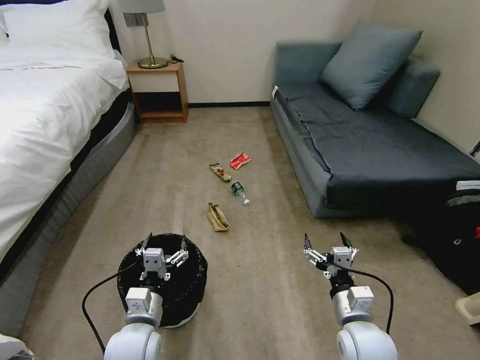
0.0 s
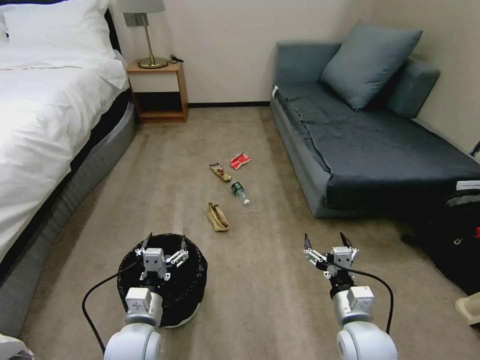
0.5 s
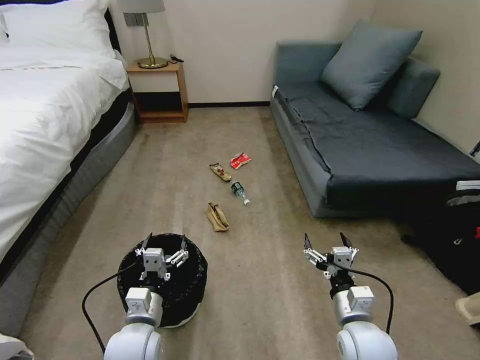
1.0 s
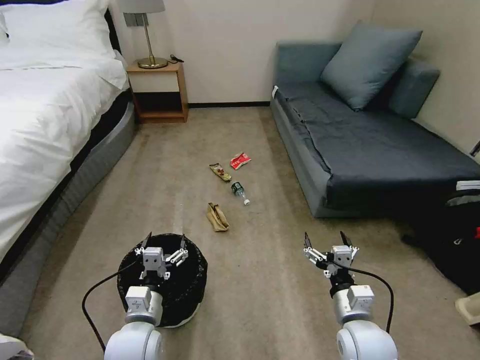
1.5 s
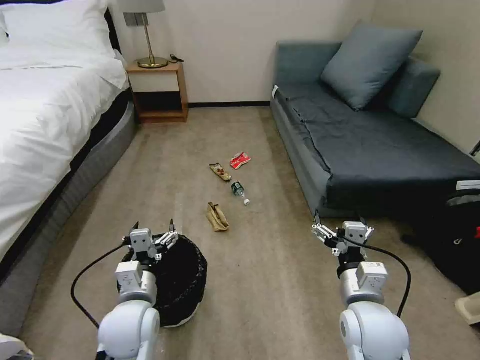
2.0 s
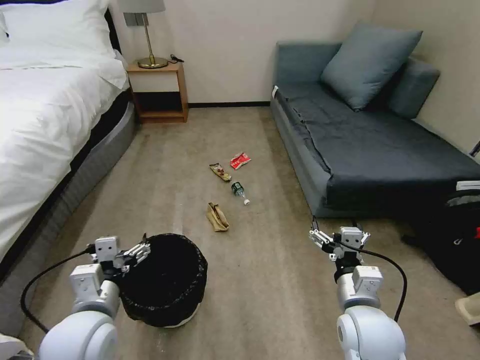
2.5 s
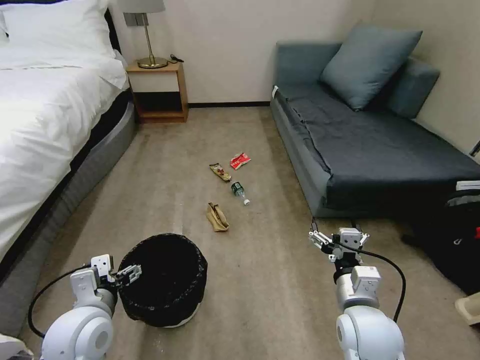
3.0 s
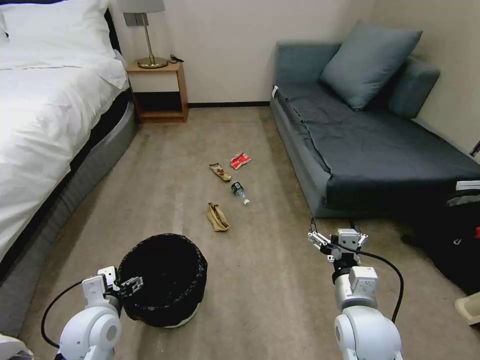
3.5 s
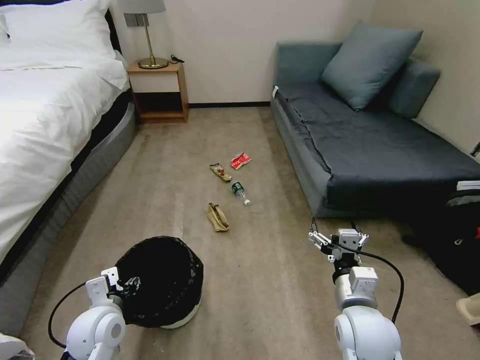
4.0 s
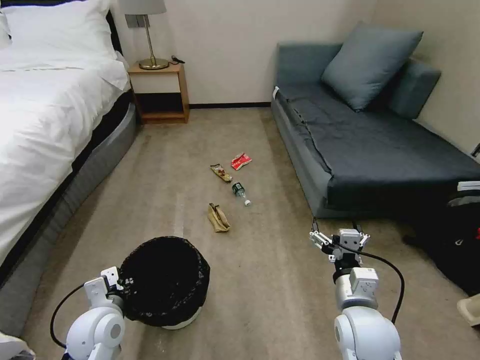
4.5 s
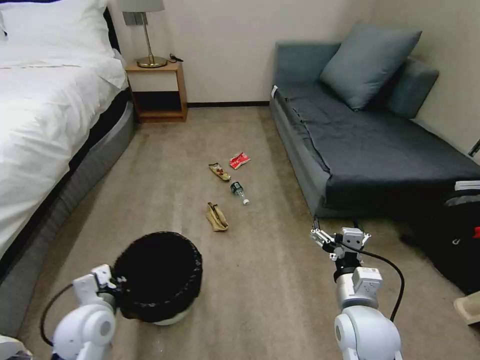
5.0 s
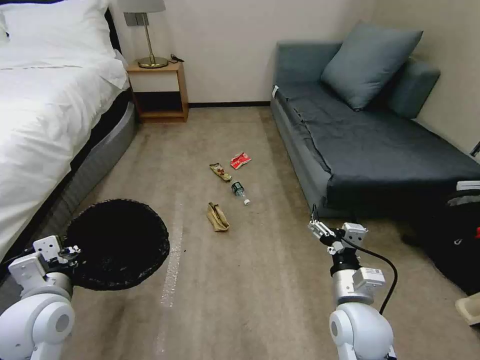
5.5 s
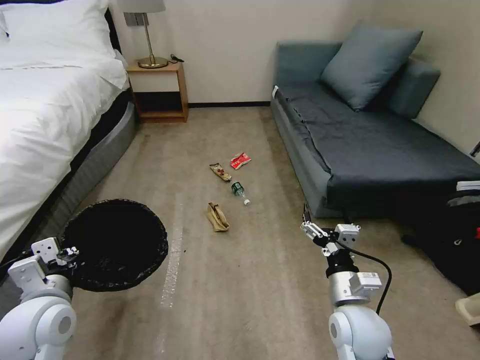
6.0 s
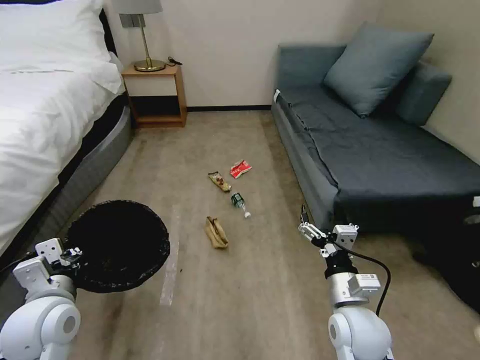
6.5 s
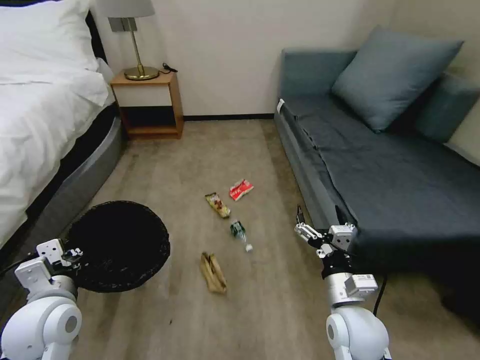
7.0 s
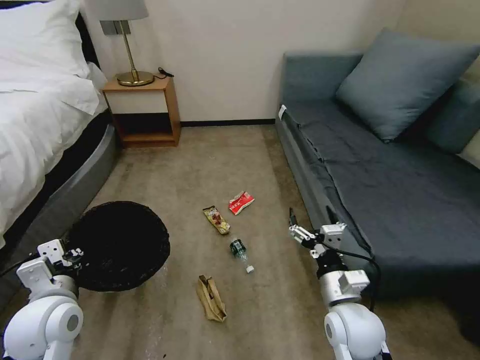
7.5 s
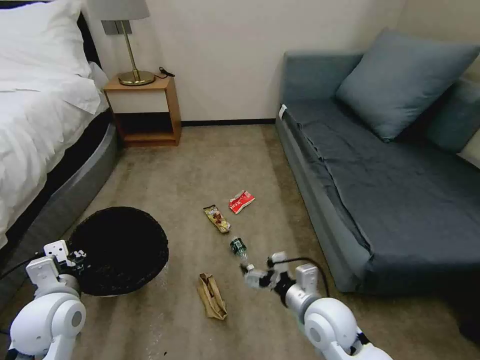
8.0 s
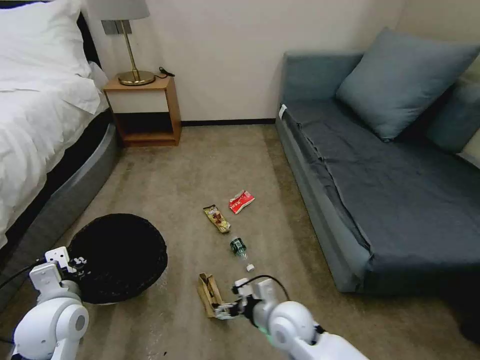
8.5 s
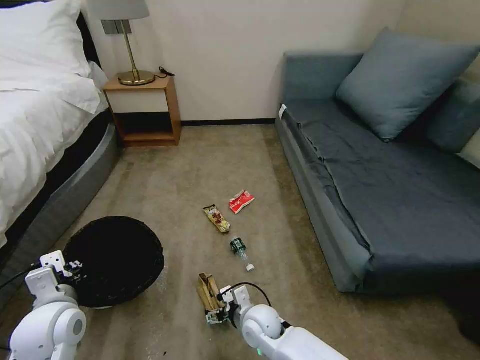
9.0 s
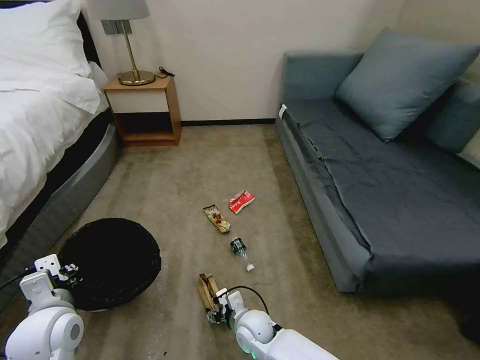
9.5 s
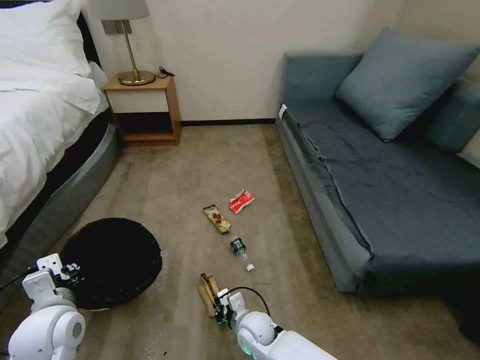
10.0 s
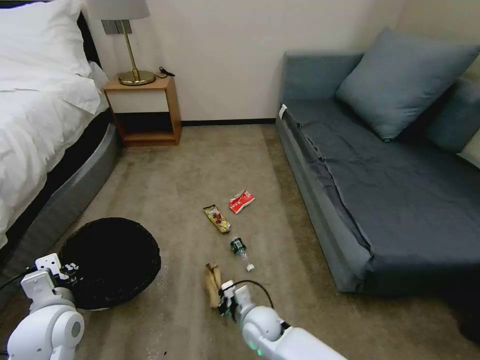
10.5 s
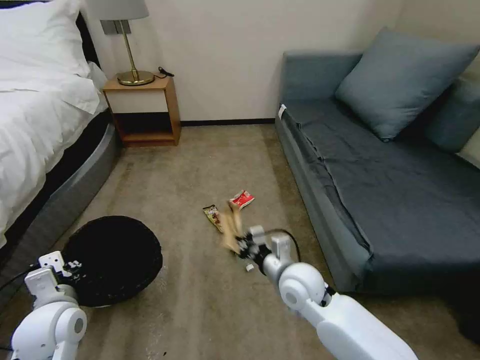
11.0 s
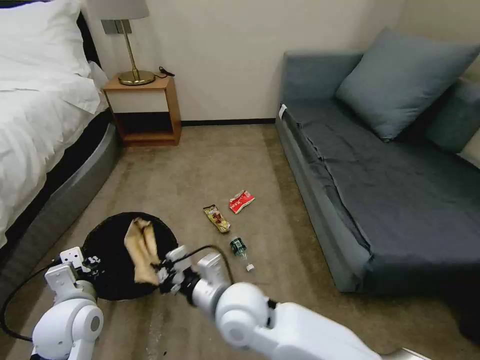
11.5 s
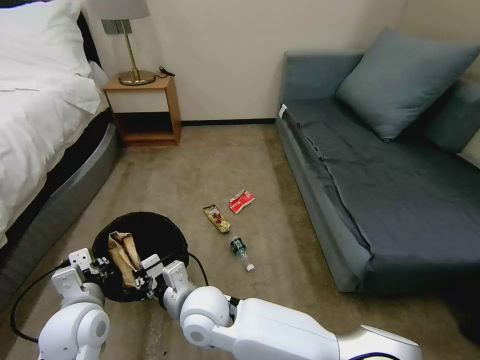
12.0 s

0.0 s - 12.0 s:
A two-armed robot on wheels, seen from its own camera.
Task of the whole recording: Pick up the trash bin, then pick up the garbage on the floor and place it into the trash bin.
2.0 s - 4.0 s: The left gripper travels to the left by roughly 10 cm, and closes.
4.0 s - 6.0 s: The left gripper moves upward, roughly 10 cm, and closes up.
8.0 s - 10.0 s: The right gripper moves downward and to the left, roughly 20 cm, and closes its fingers.
10.0 s - 12.0 s: The right gripper shifts some 25 cm upward and to the left.

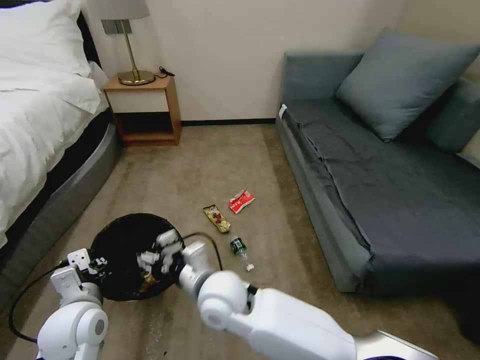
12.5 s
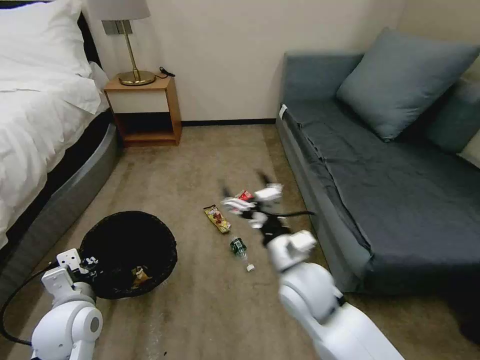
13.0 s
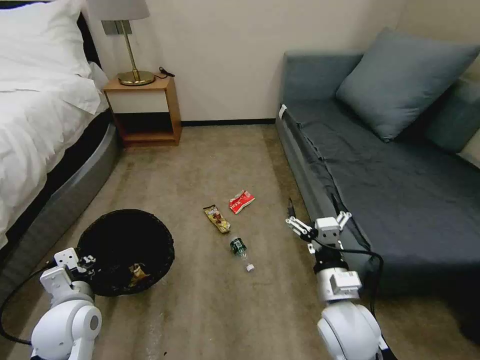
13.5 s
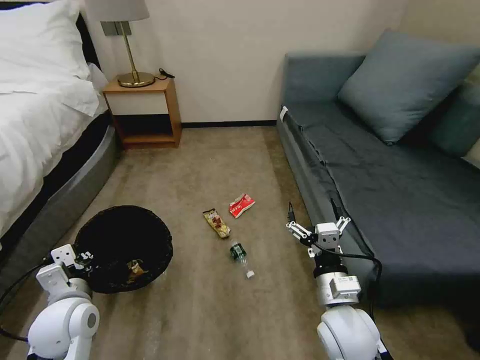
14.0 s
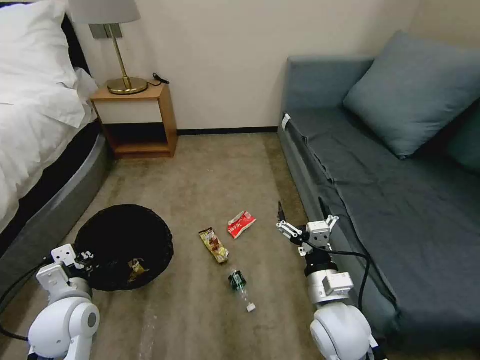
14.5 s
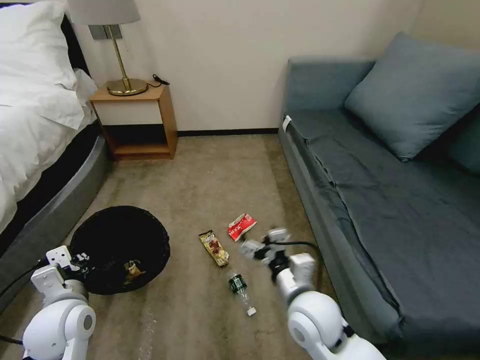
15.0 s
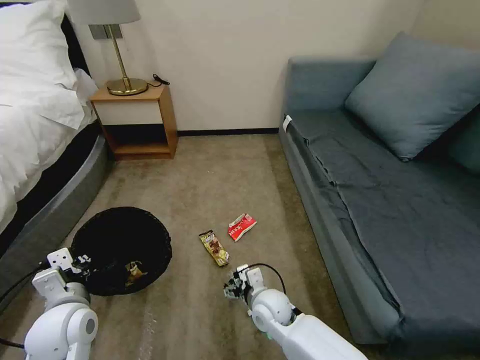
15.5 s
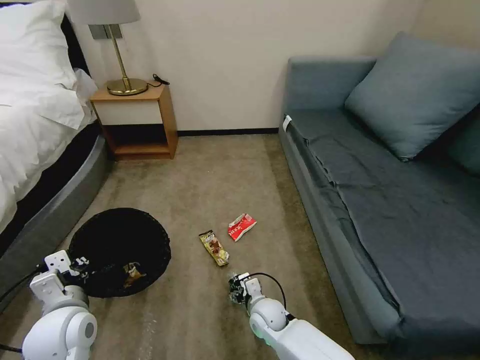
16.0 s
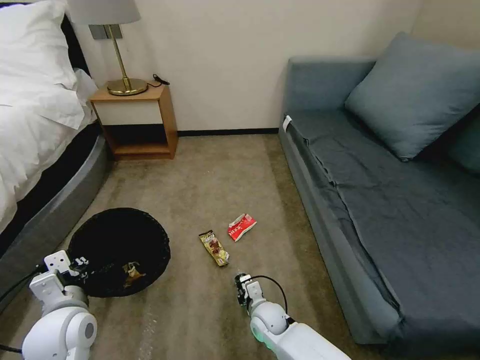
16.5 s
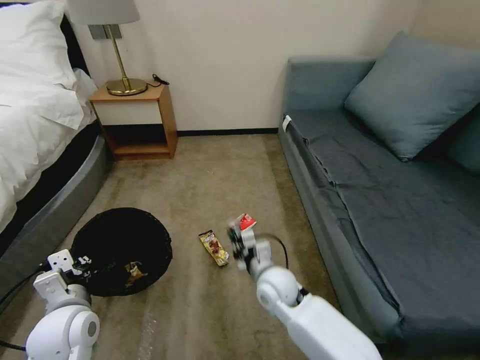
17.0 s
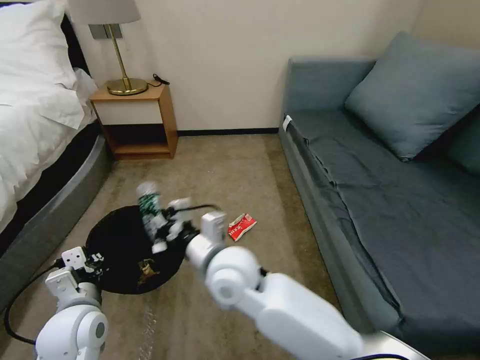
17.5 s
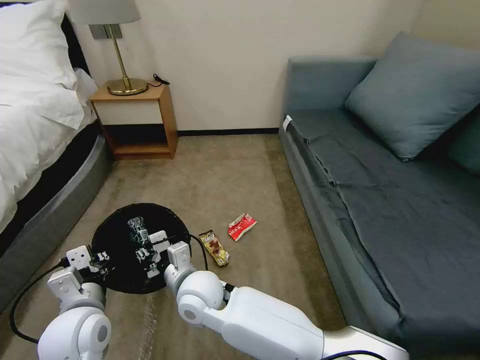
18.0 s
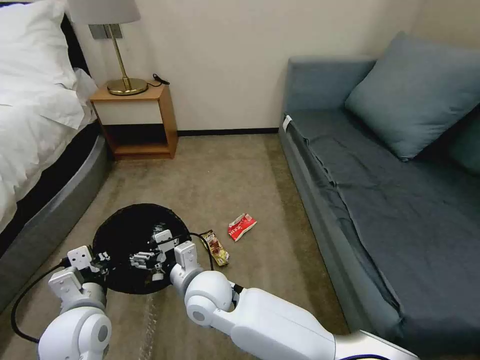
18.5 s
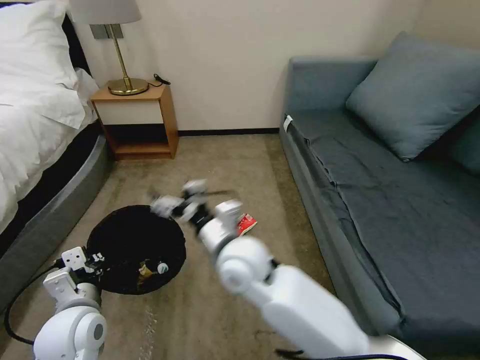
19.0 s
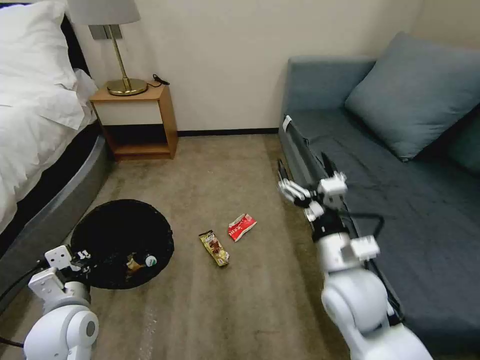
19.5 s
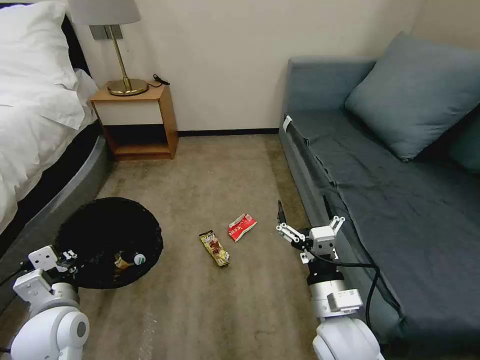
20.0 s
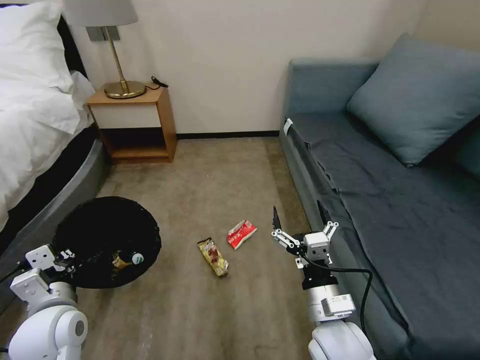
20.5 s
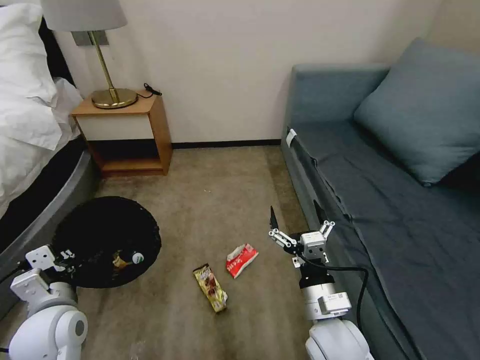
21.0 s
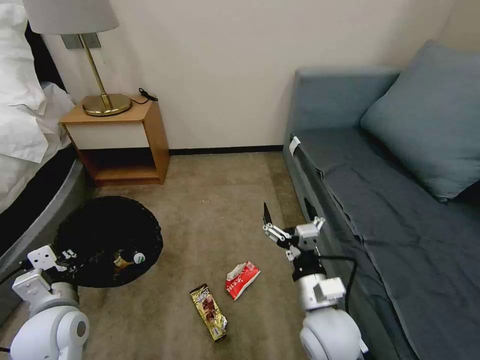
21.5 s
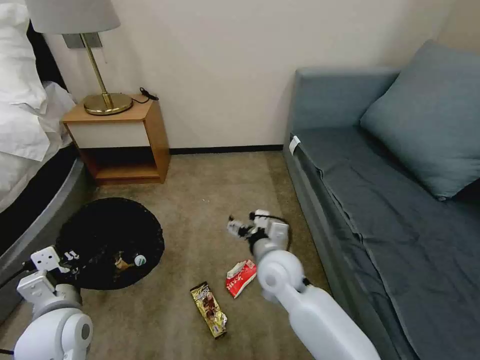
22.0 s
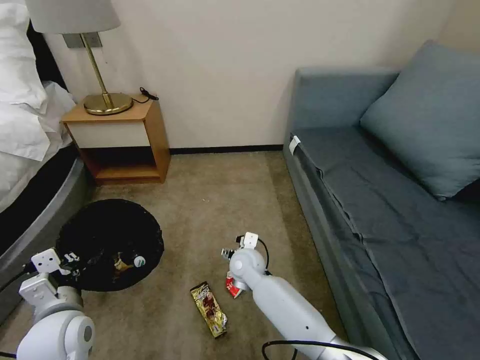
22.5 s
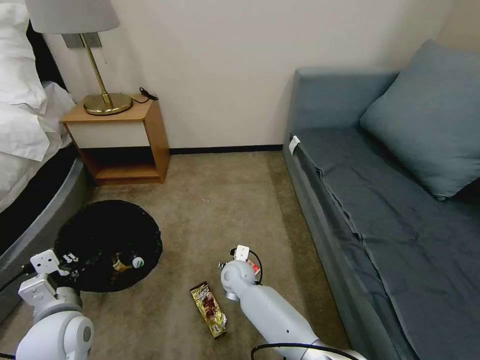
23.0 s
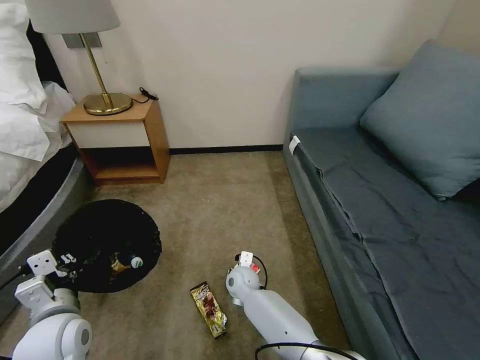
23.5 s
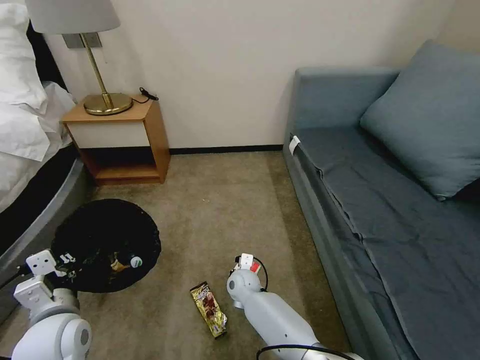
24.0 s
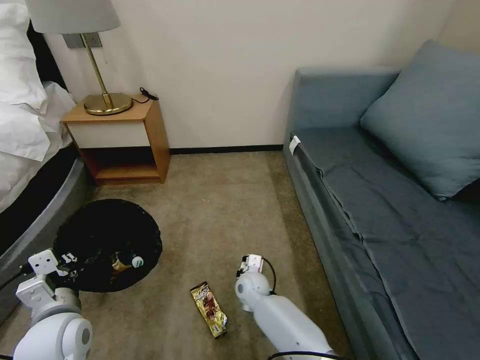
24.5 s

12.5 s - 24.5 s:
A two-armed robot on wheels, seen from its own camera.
Task of the whole recording: Pick up the trash bin, then pick up the garbage on the floor and place it into the trash bin.
12.5 s - 14.5 s: The right gripper is displaced to the right by approximately 20 cm.
14.5 s - 16.5 s: The right gripper heads downward and to the left, covering approximately 25 cm, and closes its fingers.
16.5 s - 18.5 s: The right gripper is displaced upward and to the left by about 25 cm, and opens its fingers.
18.5 s - 20.5 s: The right gripper heads to the right, covering roughly 25 cm.
20.5 s - 22.5 s: The right gripper goes approximately 25 cm forward, to the left and downward.
22.5 s - 24.5 s: The right gripper travels downward by roughly 10 cm, and closes.

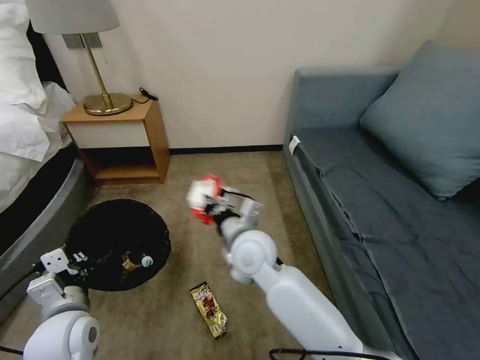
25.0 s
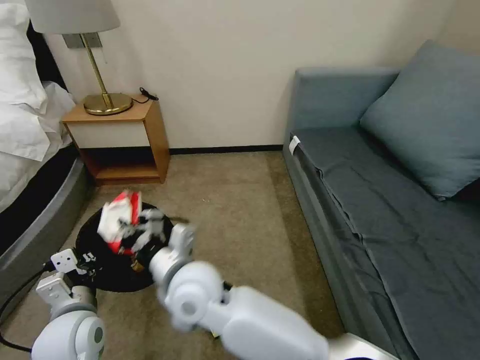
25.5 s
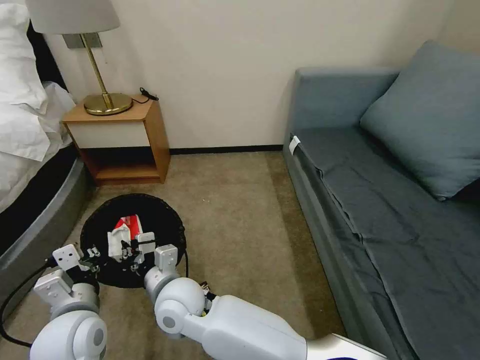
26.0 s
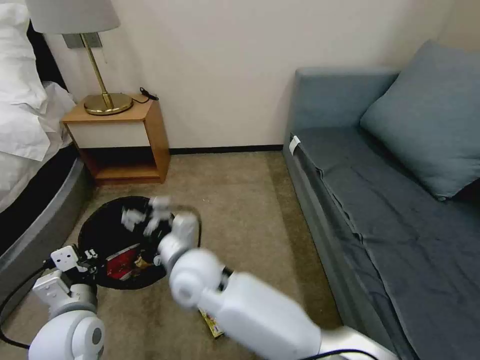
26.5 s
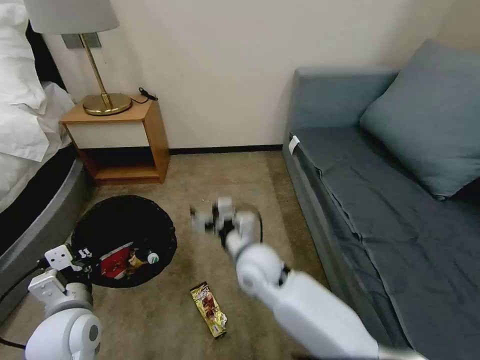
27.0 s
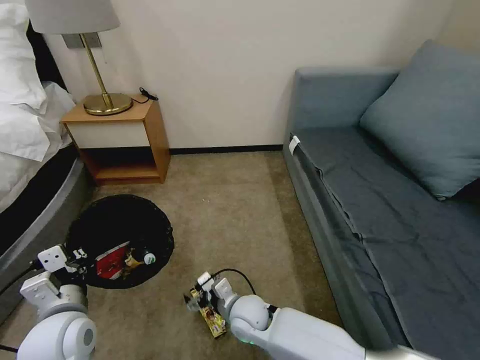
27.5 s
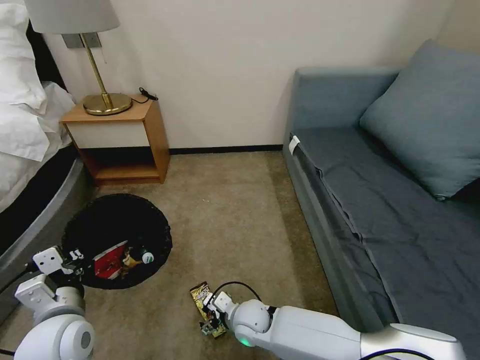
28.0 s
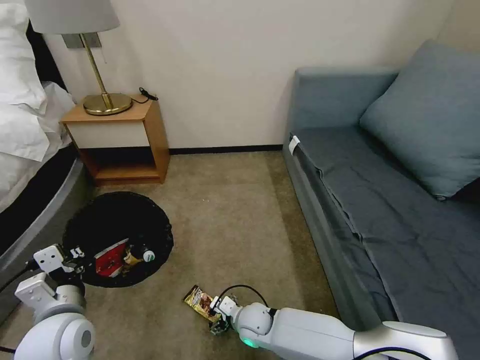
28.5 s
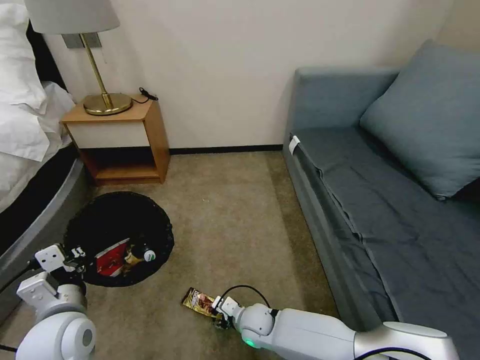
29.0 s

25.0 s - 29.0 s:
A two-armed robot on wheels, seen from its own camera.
Task of the whole recording: Pick up the trash bin, then pick up the garbage on the floor and place it into the trash bin.
25.0 s - 27.0 s: The right gripper travels downward by about 5 cm, goes to the left and returns, roughly 15 cm each way, and opens.
27.0 s - 29.0 s: The right gripper travels downward by roughly 20 cm, and closes up.
